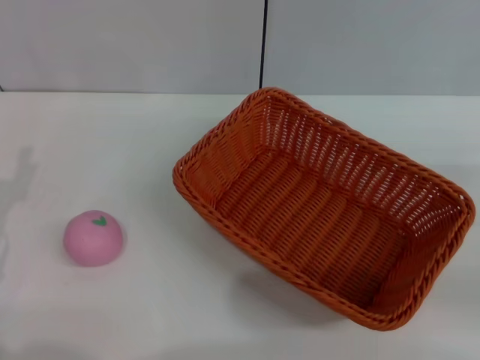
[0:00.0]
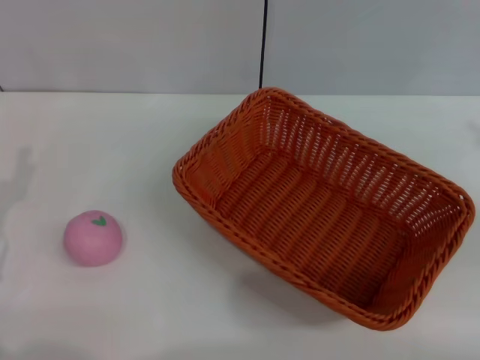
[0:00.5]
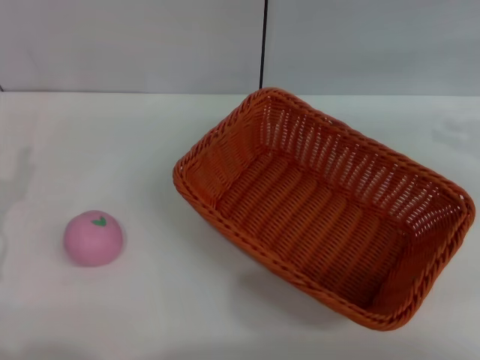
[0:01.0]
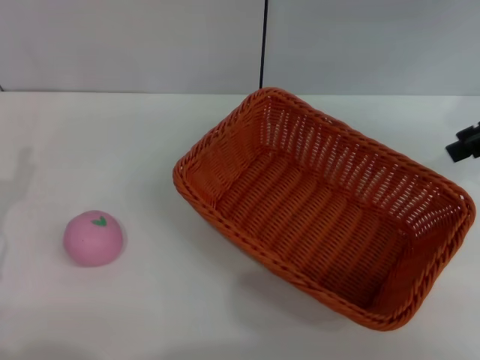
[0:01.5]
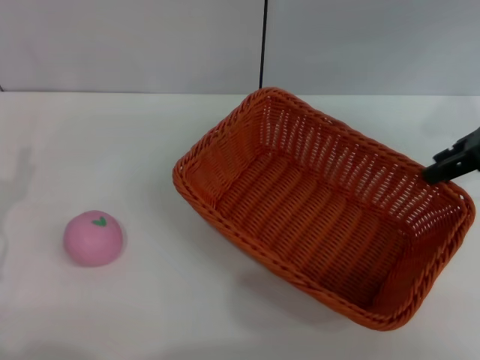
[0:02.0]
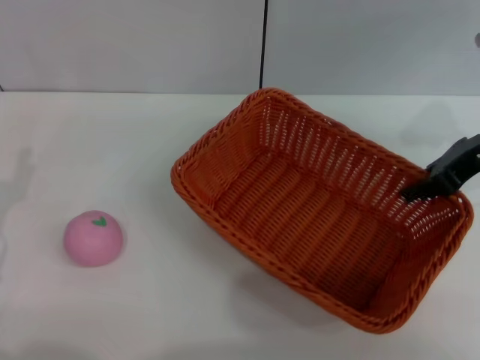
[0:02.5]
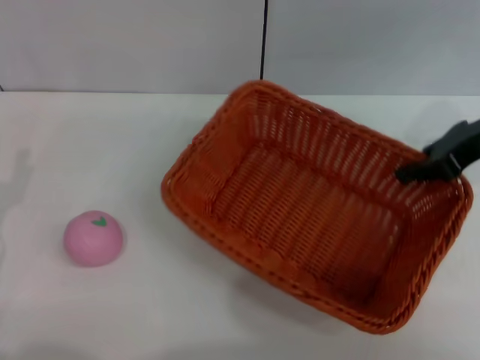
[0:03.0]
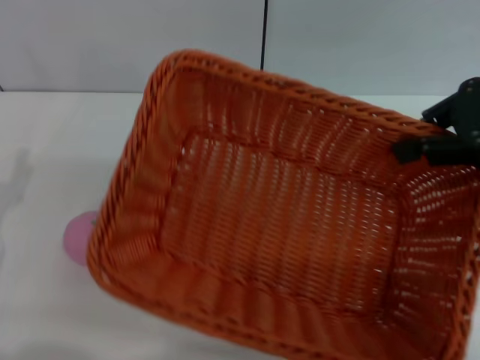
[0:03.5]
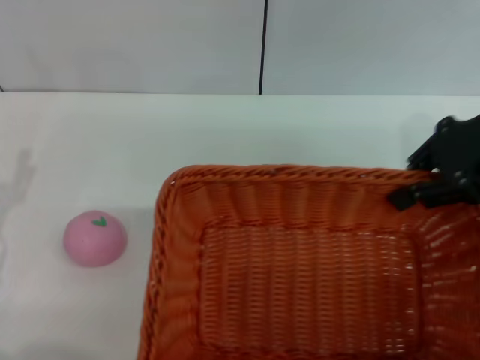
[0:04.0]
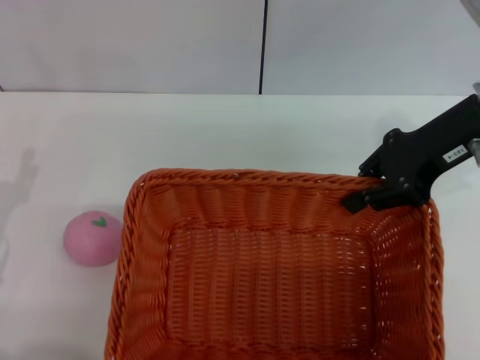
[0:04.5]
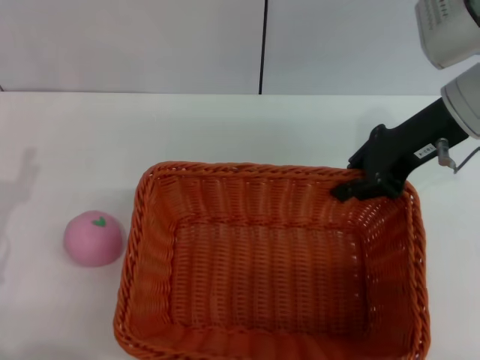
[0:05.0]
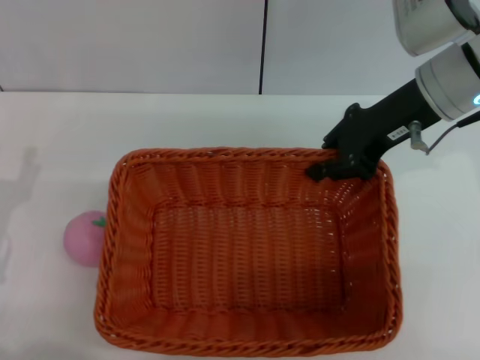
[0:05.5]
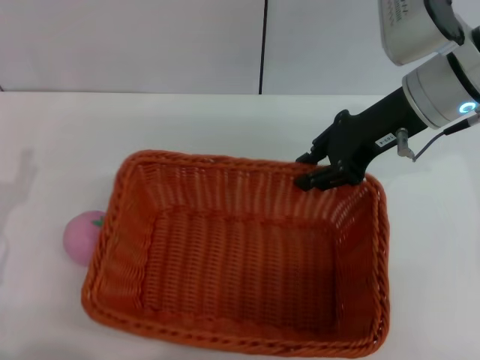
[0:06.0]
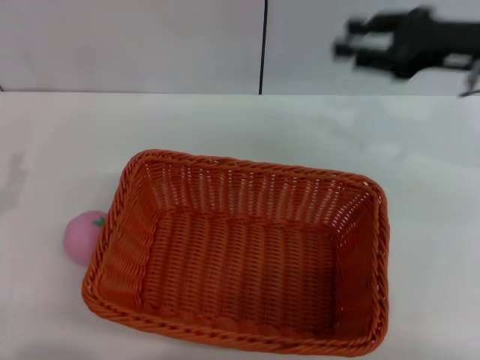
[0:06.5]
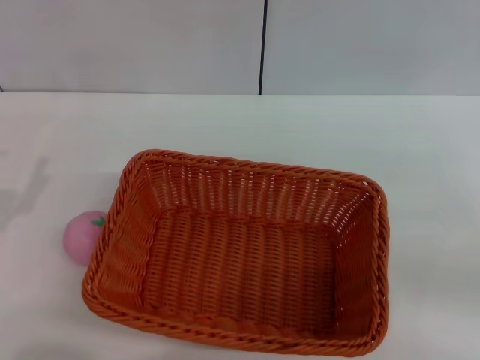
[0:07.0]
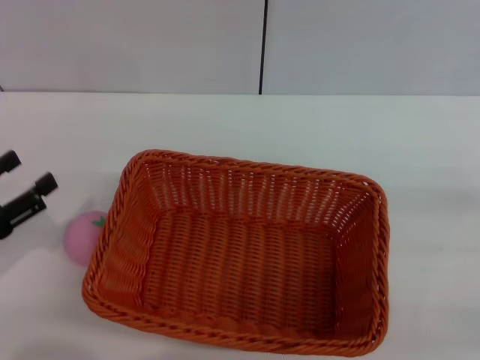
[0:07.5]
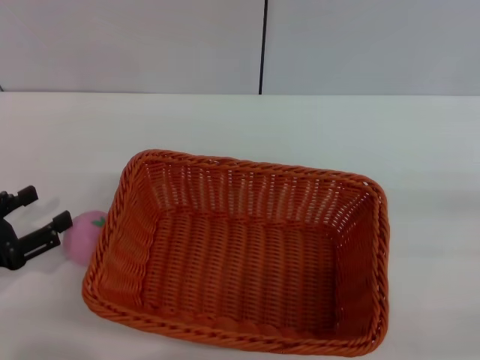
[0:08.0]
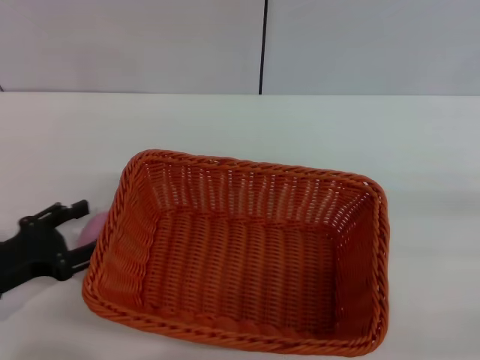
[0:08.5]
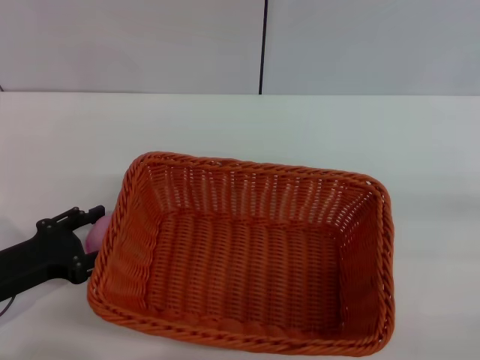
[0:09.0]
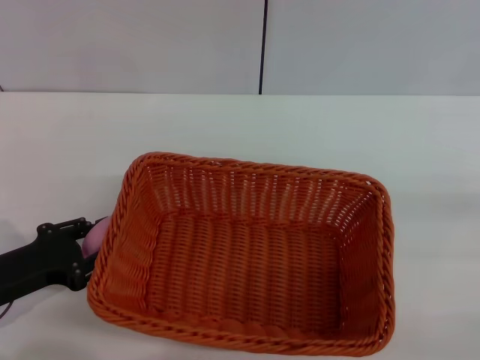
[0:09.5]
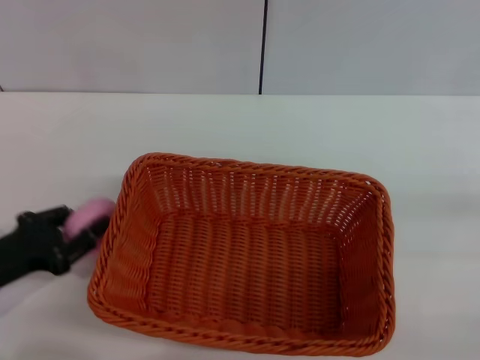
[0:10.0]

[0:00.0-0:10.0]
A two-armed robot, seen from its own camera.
Step, 0:00.0 to 0:03.0: Pick up the light basket with the right gripper.
Step, 0:03.5 to 0:06.0: Place the light basket in the center of view with the right gripper.
0:00.0 to 0:02.0: The right gripper shifts about 20 cm forward, upward and to the left.
0:02.0 to 0:04.0: The right gripper changes place by about 5 cm, and closes its fingers.
0:04.0 to 0:06.0: The right gripper moves to the left and downward, approximately 10 cm.
0:06.0 to 0:08.0: The right gripper travels to the right, backward and downward by roughly 30 cm, and opens up.
0:08.0 to 0:10.0: The left gripper closes up.

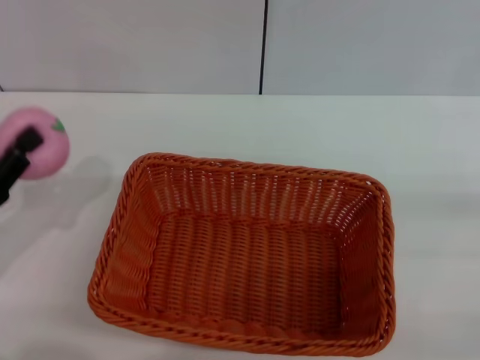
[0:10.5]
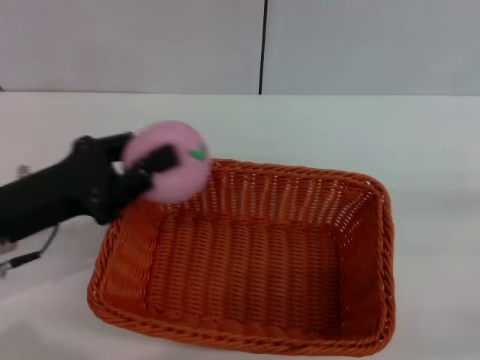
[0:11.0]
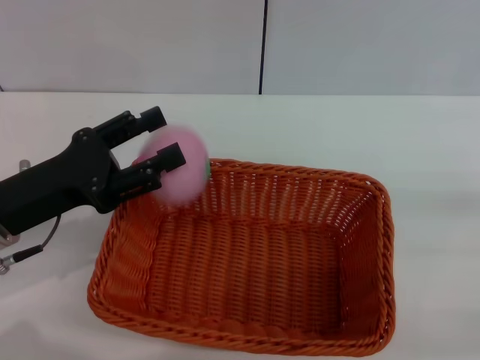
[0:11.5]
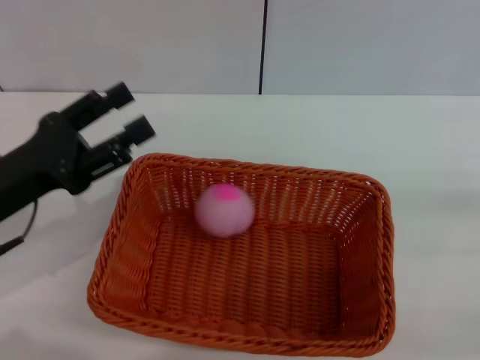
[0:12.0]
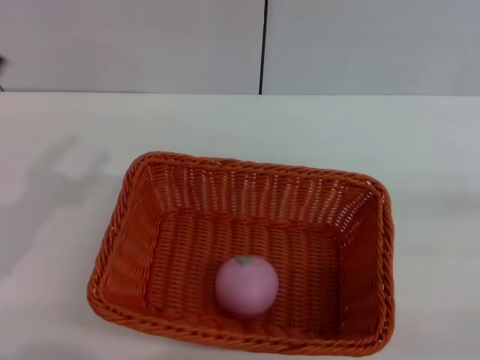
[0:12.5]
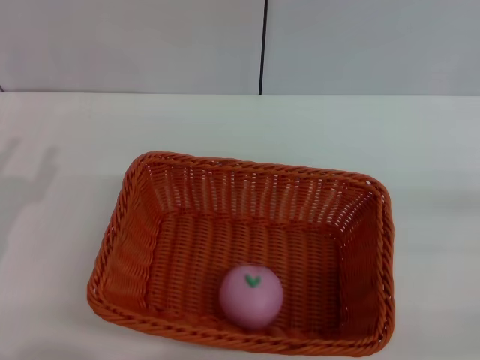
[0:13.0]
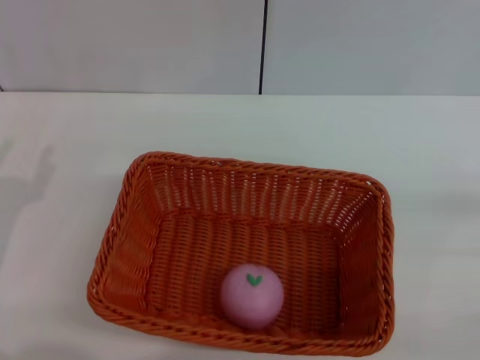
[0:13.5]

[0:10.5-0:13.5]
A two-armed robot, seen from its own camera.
Step, 0:10.5 to 0:11.5: Place the peach into the basket with the left gripper.
0:10.5 to 0:12.0: The left gripper moves to the right, about 5 cm, and opens its fingers.
0:12.0 to 0:13.5: The left gripper changes place by approximately 5 cm.

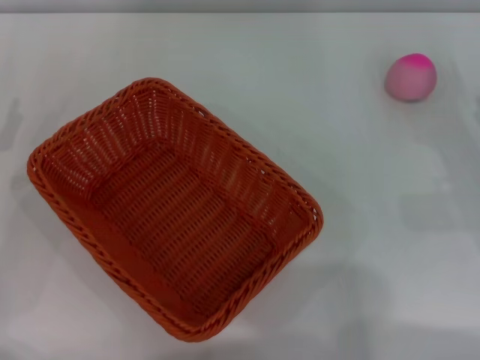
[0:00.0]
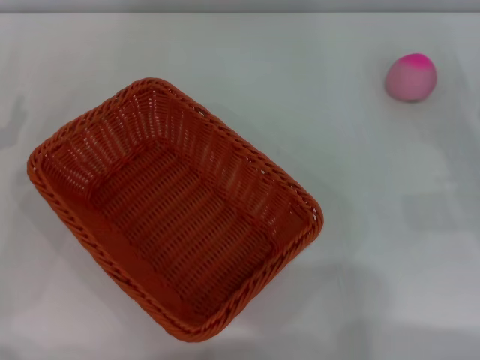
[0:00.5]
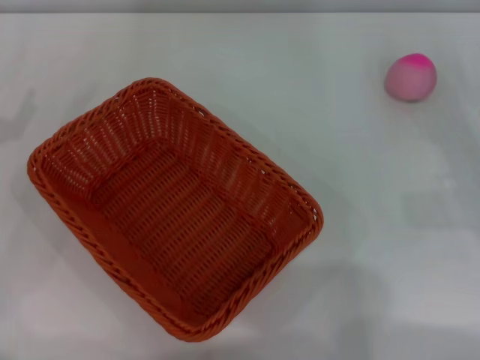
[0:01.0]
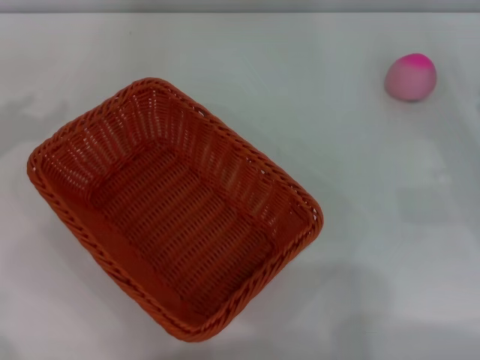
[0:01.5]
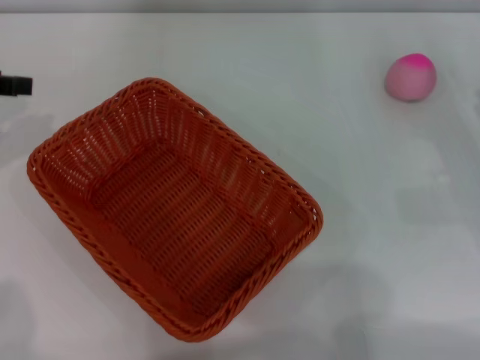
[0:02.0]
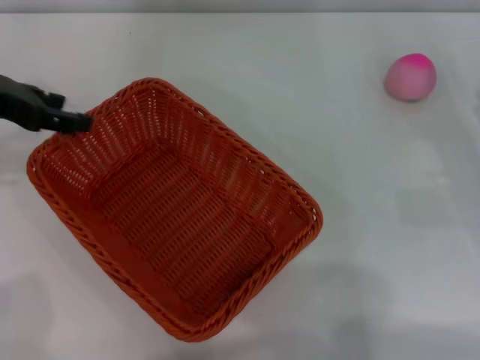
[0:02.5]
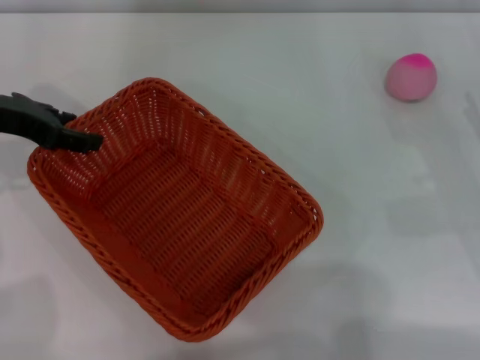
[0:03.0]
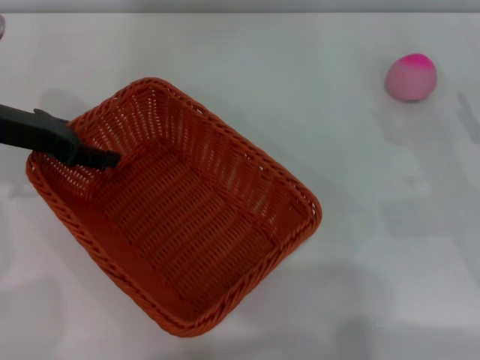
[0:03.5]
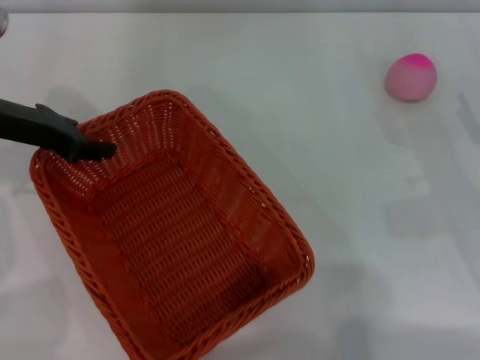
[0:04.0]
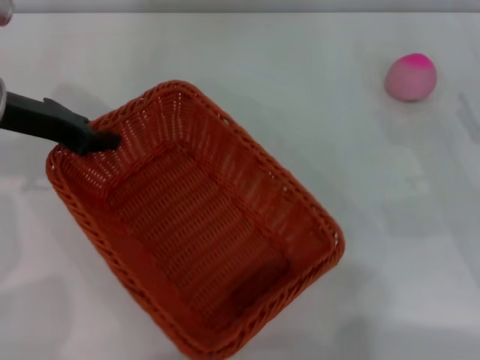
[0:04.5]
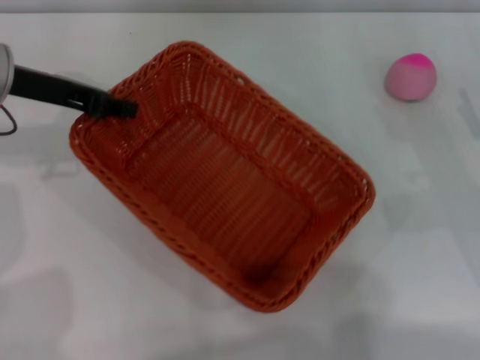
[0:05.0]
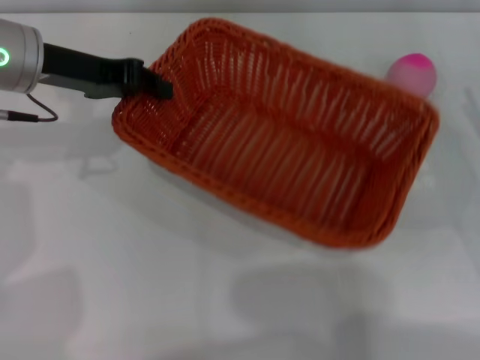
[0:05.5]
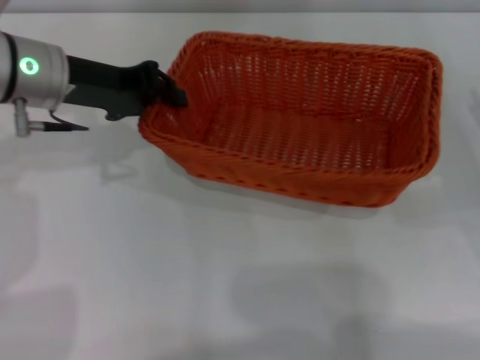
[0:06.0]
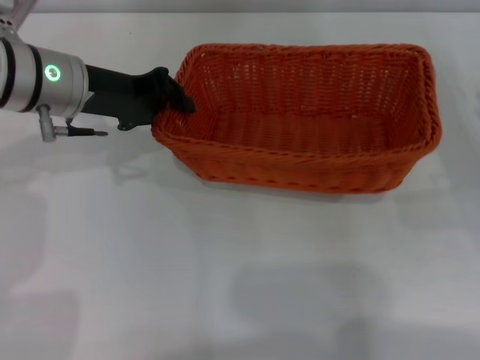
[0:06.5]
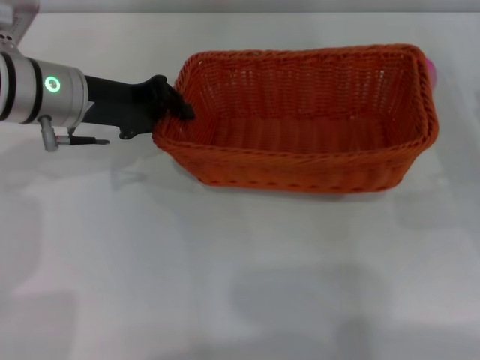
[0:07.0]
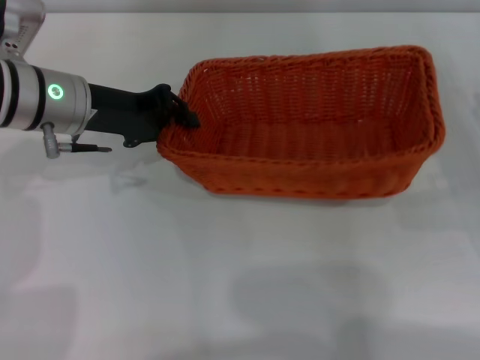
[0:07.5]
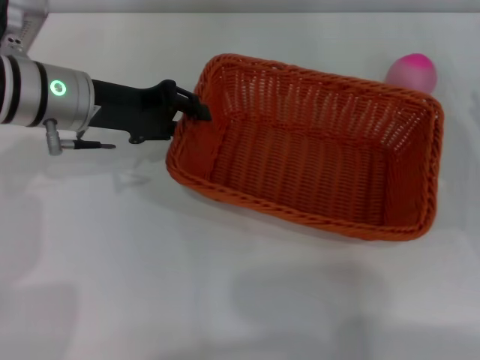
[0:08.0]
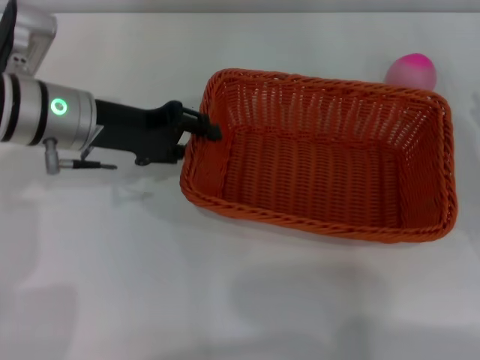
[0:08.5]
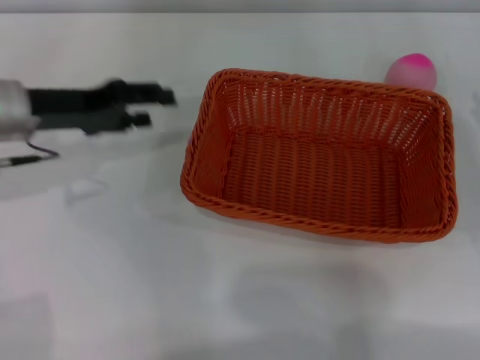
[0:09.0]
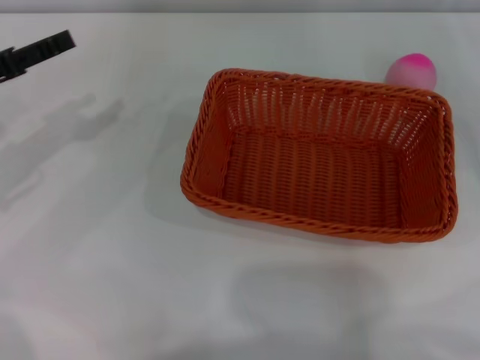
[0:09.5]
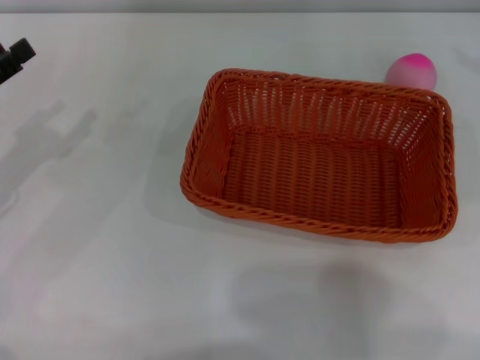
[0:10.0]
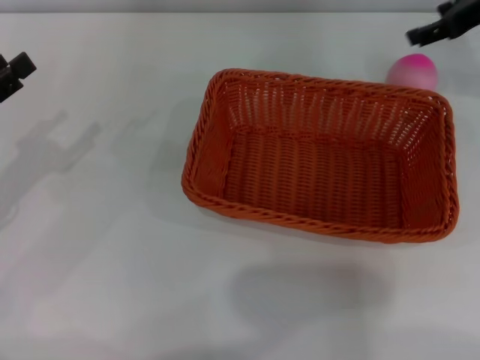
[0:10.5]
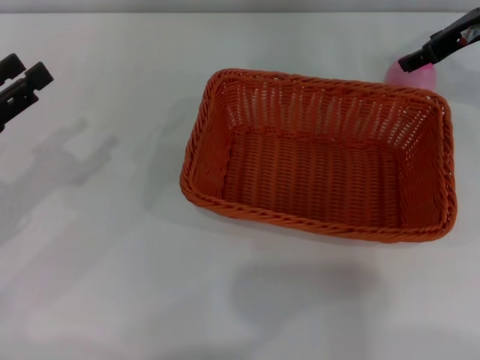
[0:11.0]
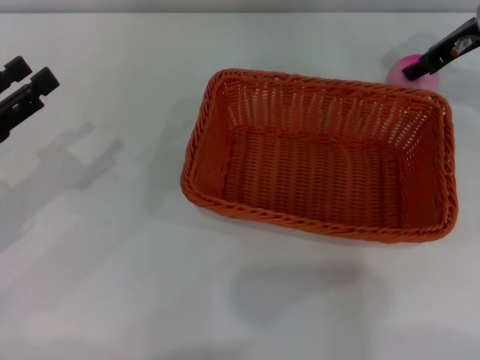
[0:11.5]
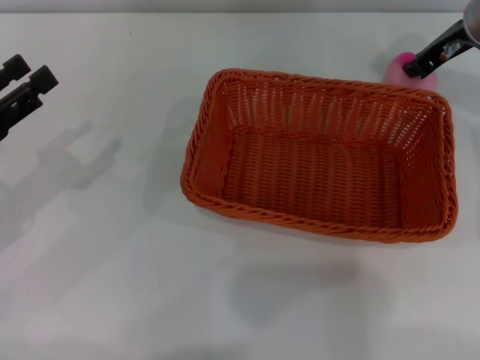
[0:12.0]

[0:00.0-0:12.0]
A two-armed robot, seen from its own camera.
Step, 0:00.0 to 0:04.5: Pick up the light basket with the left gripper.
Step, 0:05.0 to 0:09.0: Place the light basket in the center of view with the right gripper.
0:02.0 to 0:04.0: The left gripper moves to the right and downward, about 10 cm, and closes.
0:04.0 to 0:06.0: The left gripper goes approximately 5 cm to the right, and closes up.
0:08.0 to 0:10.0: The left gripper is displaced to the left and backward by approximately 15 cm, and opens. Meanwhile the right gripper travels upward and forward by about 20 cm.
0:10.0 to 0:12.0: The right gripper is displaced to the left and forward by roughly 15 cm, and closes its fingers.
